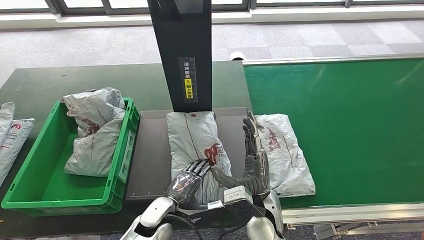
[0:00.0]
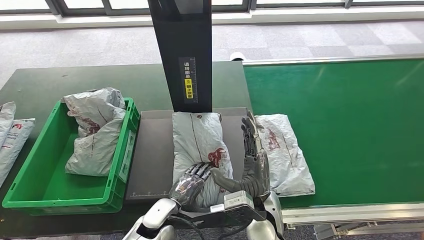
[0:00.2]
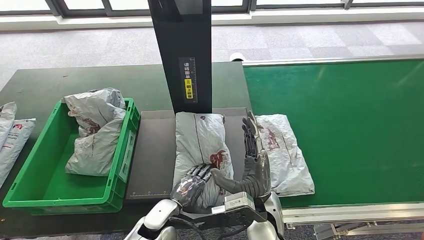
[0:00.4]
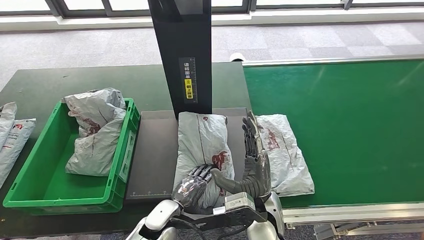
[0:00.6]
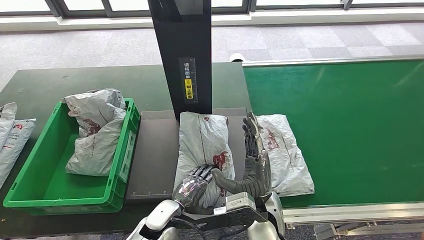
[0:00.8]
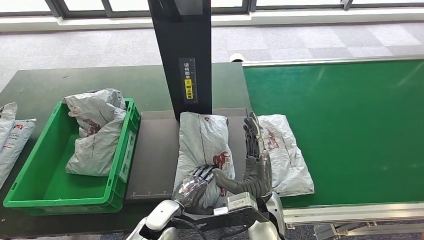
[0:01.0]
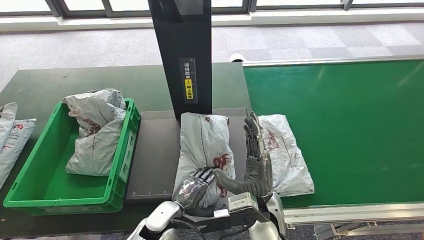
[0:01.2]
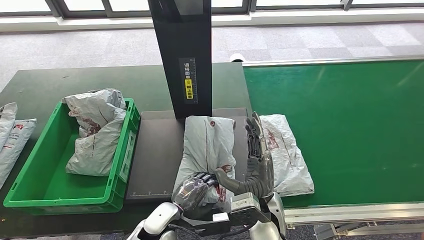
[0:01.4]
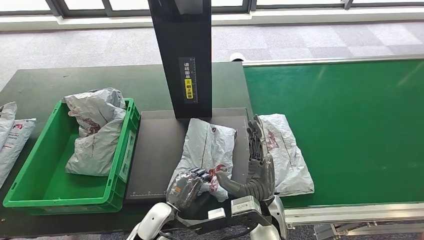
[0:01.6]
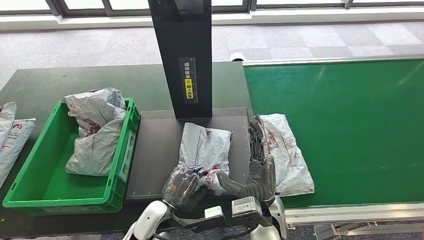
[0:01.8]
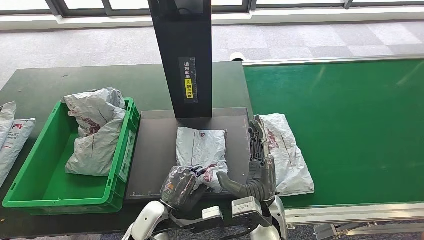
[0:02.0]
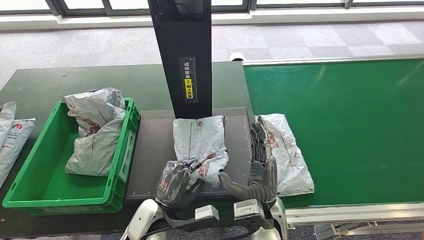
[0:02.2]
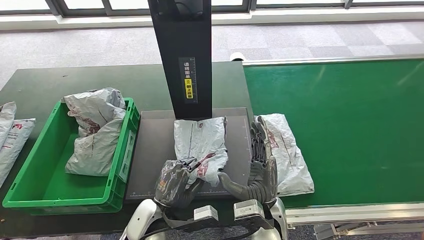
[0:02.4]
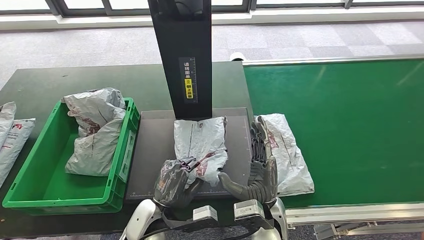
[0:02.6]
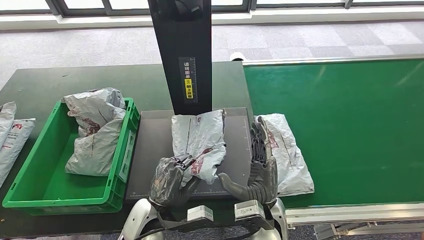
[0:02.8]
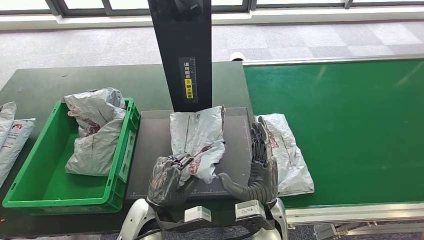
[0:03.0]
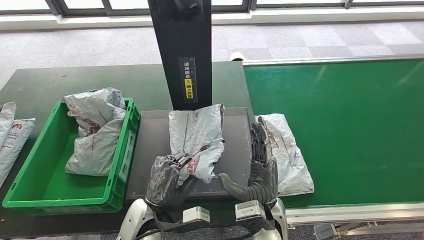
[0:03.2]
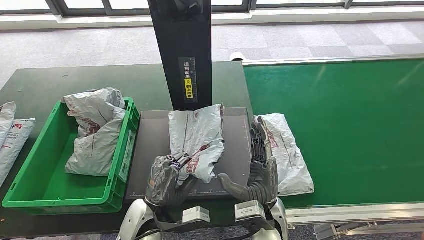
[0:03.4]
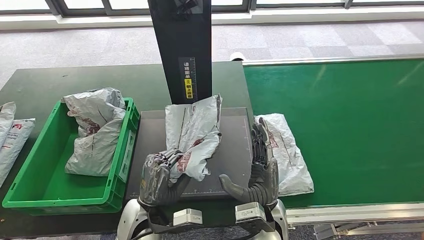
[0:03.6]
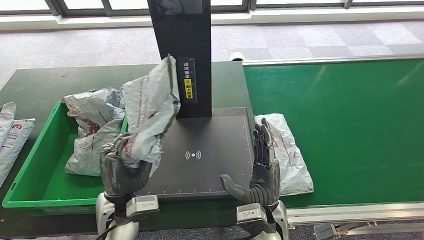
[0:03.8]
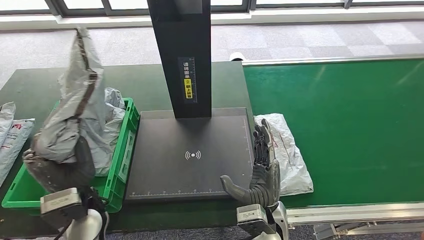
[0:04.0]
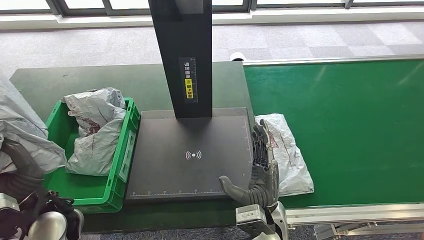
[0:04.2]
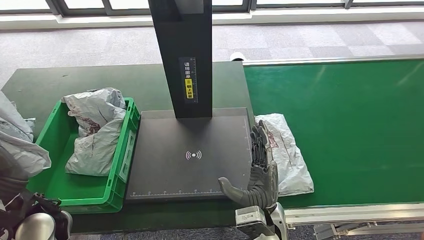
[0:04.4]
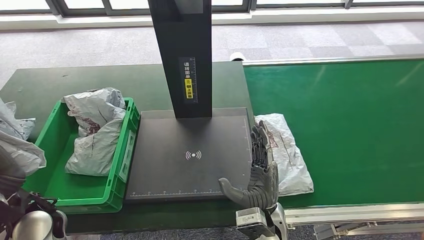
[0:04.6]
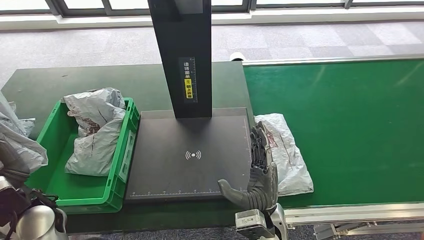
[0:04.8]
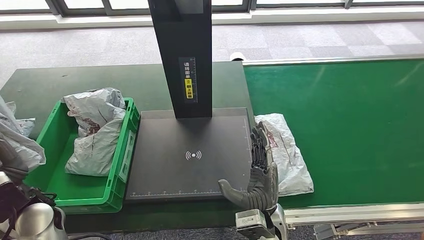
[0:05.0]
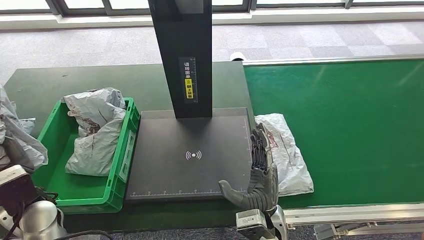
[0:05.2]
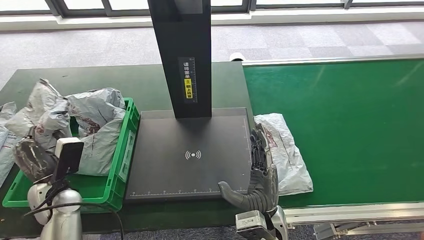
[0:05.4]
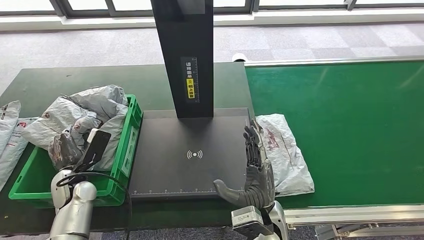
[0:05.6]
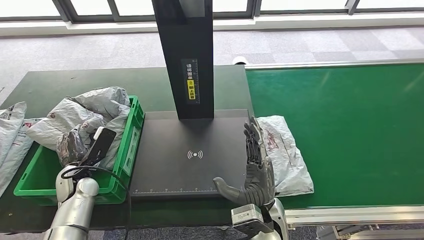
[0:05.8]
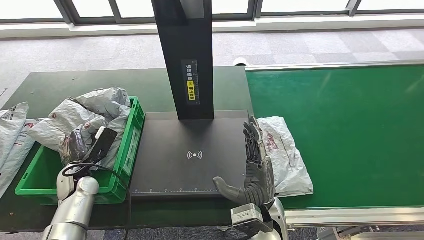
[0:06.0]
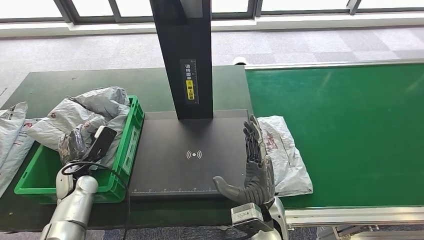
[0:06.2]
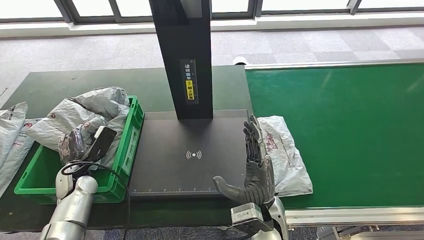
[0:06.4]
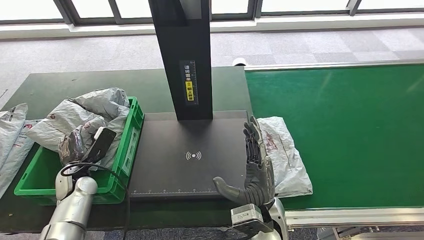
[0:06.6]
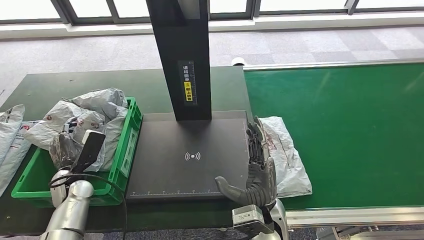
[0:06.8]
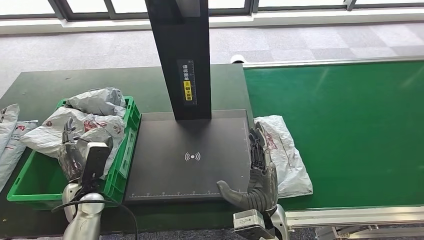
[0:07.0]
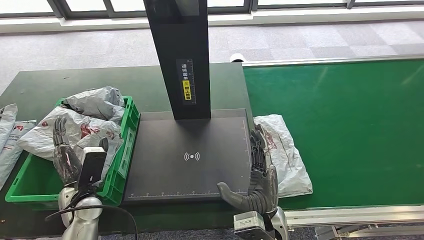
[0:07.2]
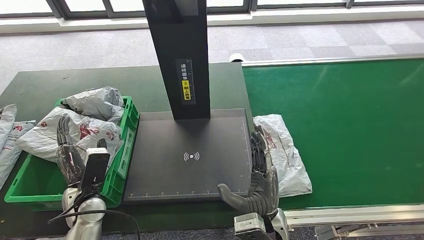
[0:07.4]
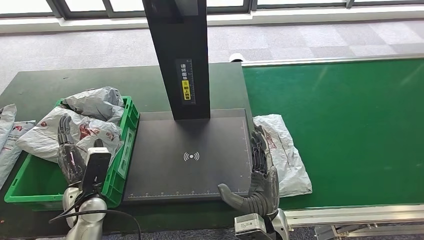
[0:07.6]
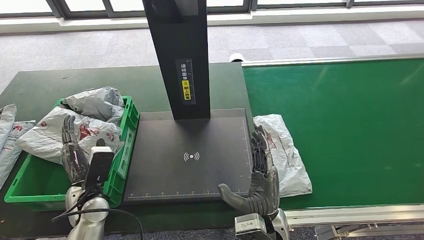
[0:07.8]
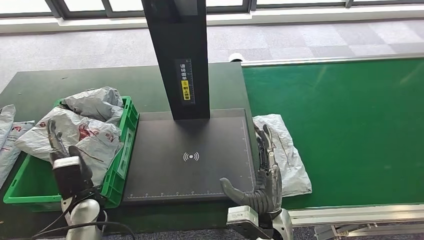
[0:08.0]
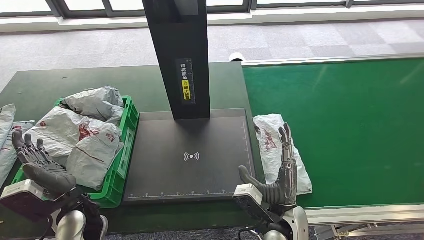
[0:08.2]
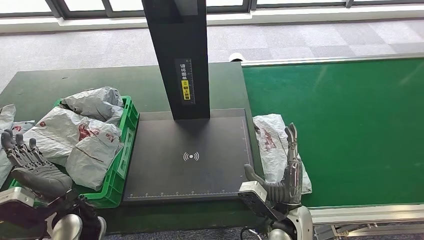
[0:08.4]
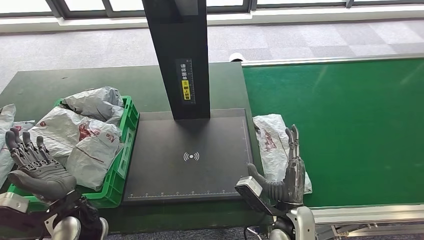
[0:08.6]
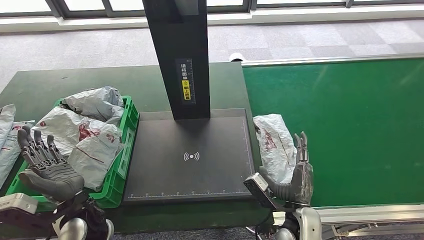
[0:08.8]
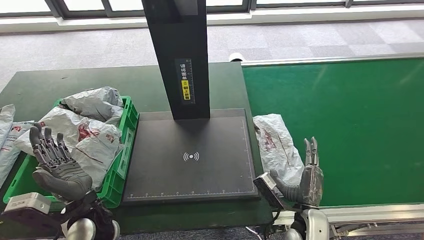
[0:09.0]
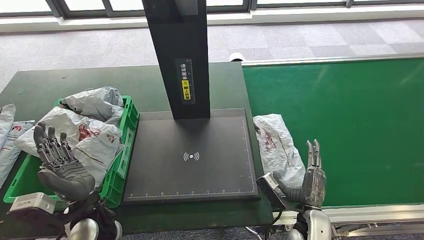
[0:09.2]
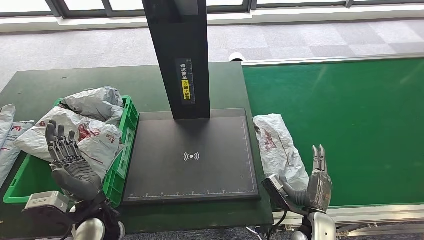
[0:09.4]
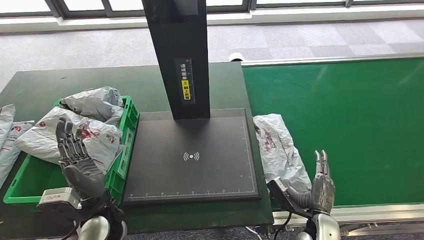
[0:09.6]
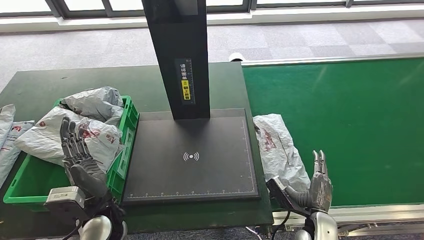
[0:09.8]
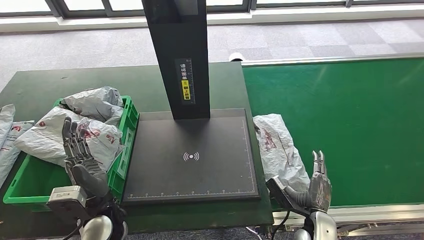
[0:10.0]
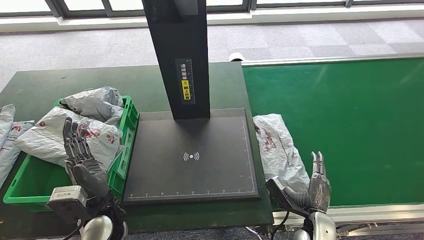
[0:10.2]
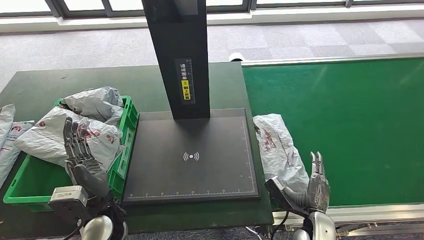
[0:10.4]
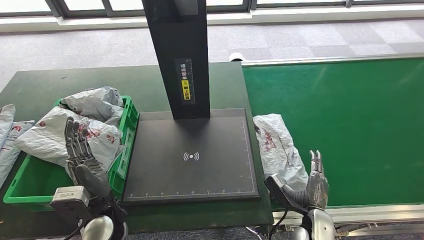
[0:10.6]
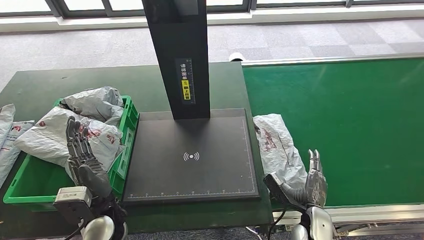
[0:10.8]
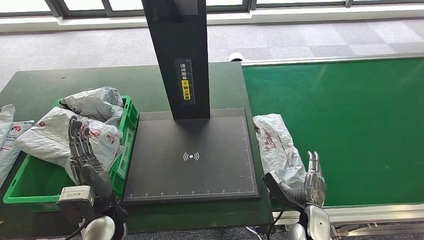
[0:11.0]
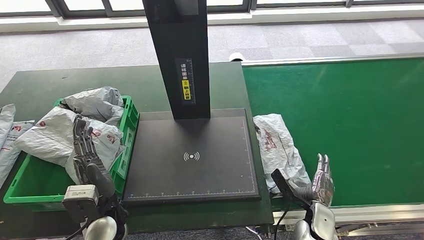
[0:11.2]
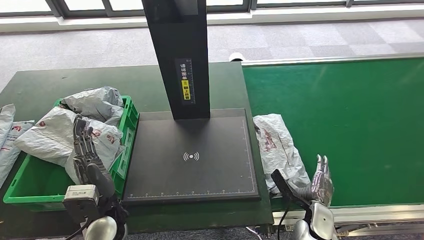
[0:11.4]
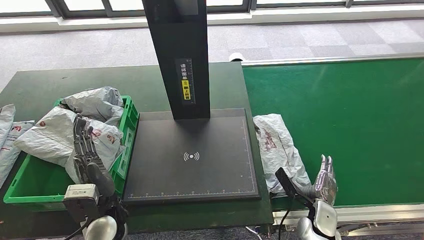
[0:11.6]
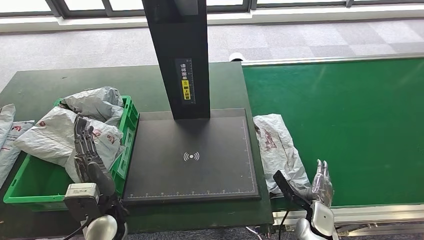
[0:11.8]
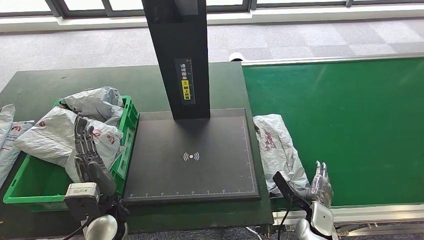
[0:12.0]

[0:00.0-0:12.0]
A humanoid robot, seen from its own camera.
Step, 0:01.4 to 0:04.2: Pick up the parcel from the inbound machine.
Step, 0:04.4 to 0:07.6: Place the parcel into the delivery box.
0:00.0 to 0:01.6: The hands move only a little.
0:01.6 to 0:03.0: The left hand is displaced upward by approximately 5 cm.
0:03.0 to 0:04.4: The left hand moves to the left, approximately 20 cm.
0:07.6 to 0:09.0: The left hand moves about 5 cm. Meanwhile the right hand heads to the right and downward, covering about 15 cm.
0:09.0 to 0:10.4: The right hand ends up approximately 5 cm from where it was.
0:10.4 to 0:12.0: The right hand ends up some 5 cm from where it was.

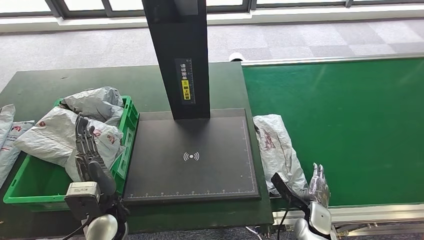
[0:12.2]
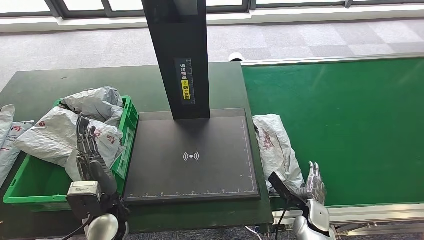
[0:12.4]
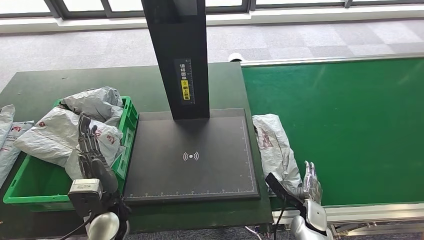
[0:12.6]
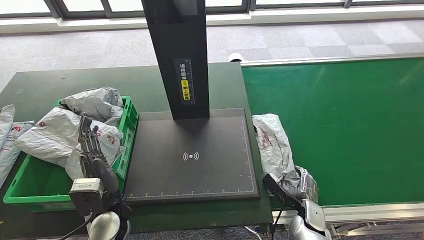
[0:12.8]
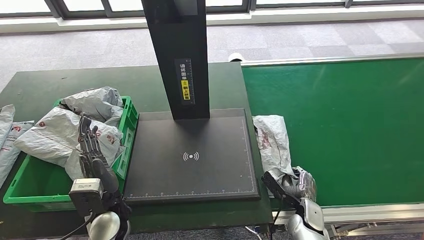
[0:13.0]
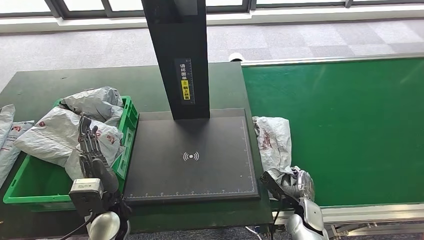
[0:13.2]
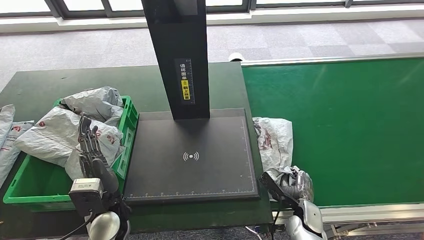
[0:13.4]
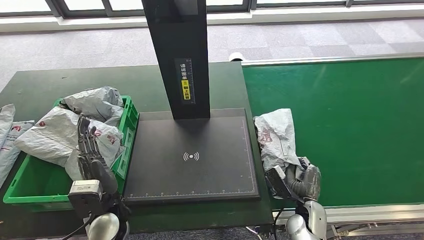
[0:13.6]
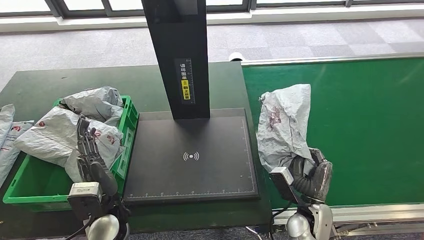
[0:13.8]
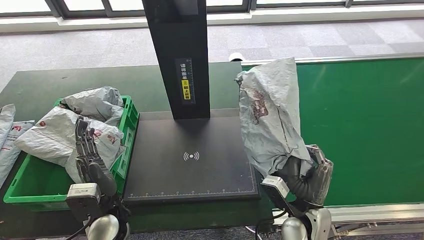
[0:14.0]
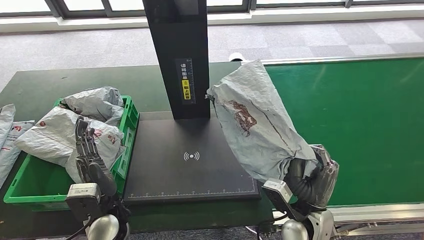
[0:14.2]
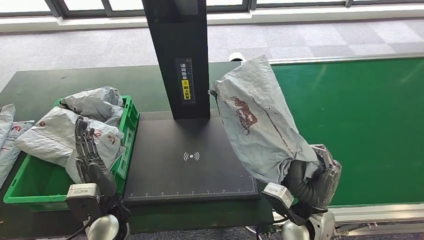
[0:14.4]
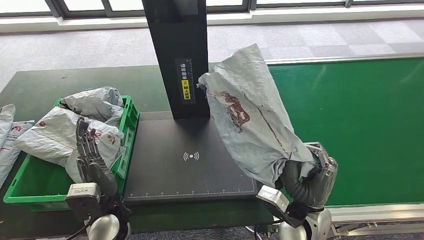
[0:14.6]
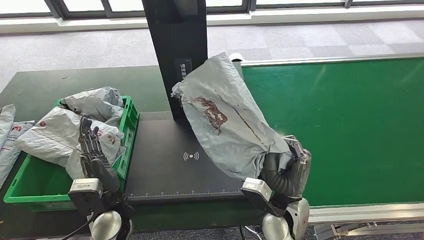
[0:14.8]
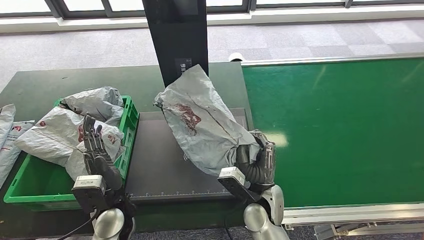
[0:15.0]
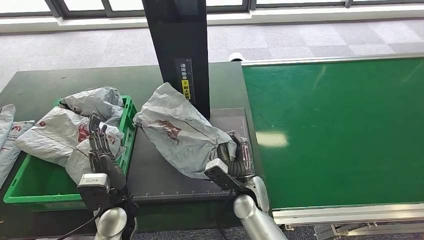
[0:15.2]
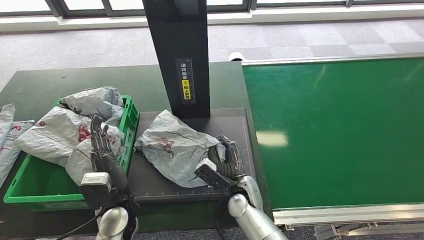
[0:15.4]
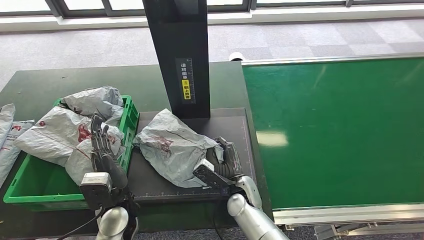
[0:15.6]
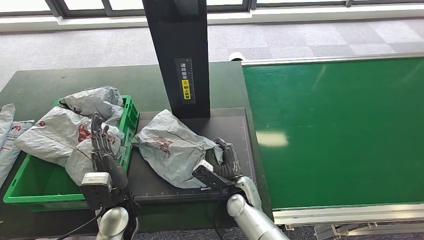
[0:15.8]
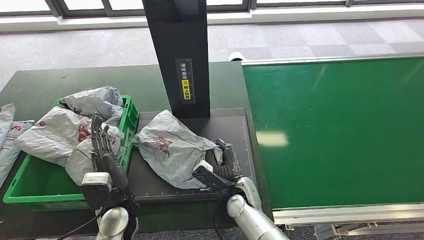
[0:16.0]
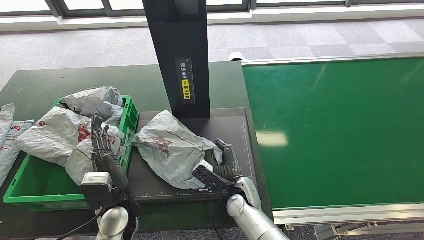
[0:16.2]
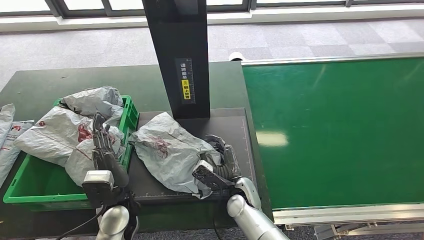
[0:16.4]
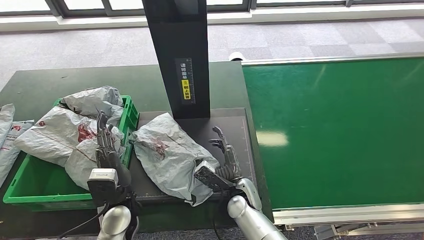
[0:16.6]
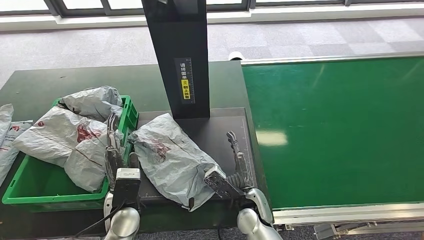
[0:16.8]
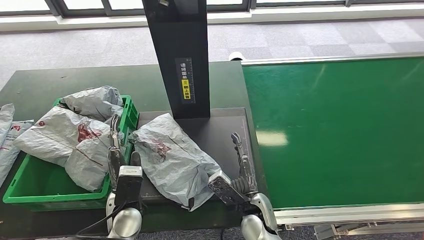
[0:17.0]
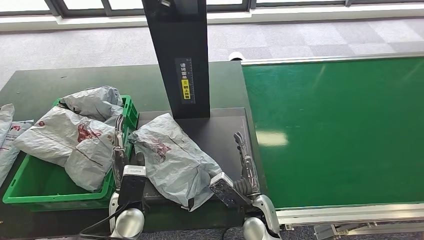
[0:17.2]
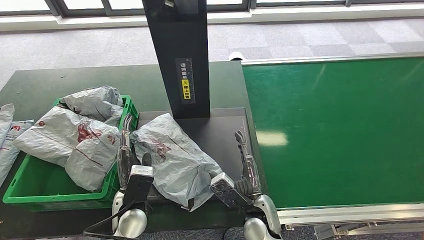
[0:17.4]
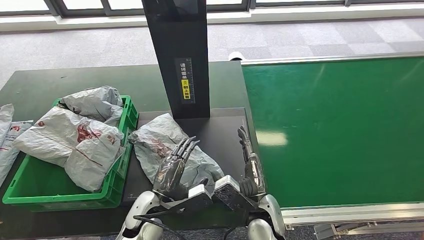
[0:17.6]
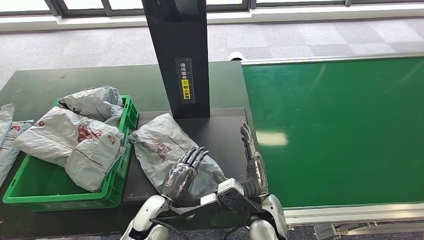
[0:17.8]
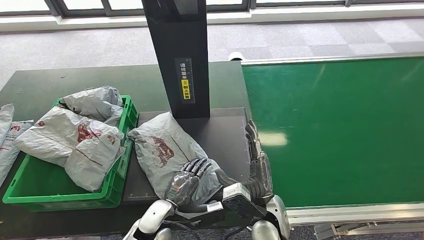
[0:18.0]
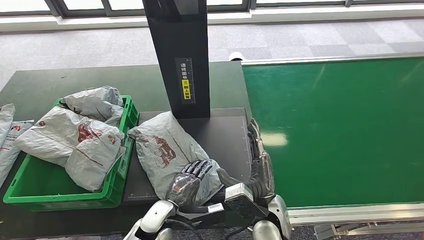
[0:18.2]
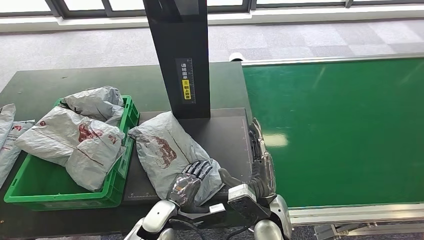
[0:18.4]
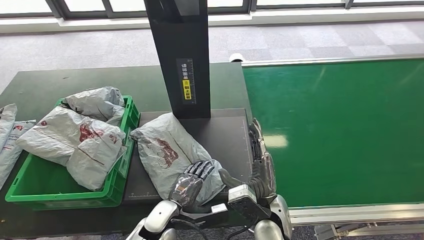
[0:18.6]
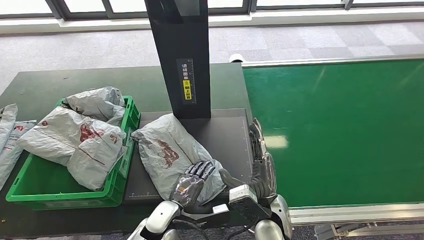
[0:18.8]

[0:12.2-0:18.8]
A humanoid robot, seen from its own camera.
Step, 0:12.2 to 0:15.0: Pick up the parcel from the conveyor belt.
Step, 0:15.2 to 0:18.0: Place the parcel onto the inbound machine.
0:12.2 to 0:13.8: The right hand shifts some 5 cm upward.
0:13.8 to 0:15.4: The right hand goes about 20 cm to the left and forward.
0:15.4 to 0:17.2: The right hand is displaced backward by approximately 5 cm.
